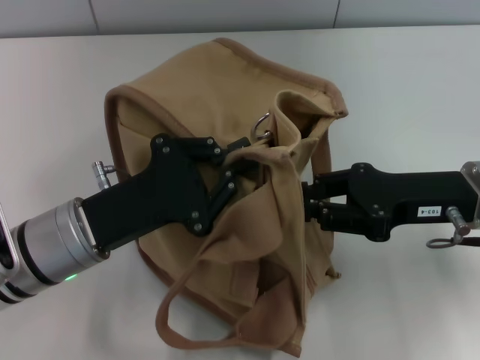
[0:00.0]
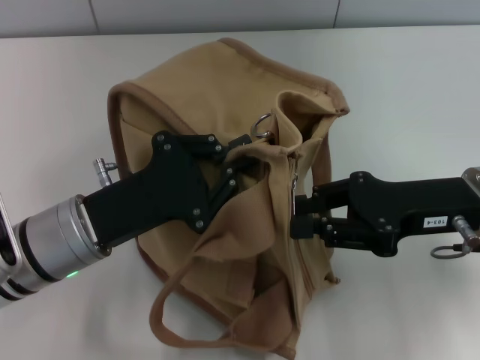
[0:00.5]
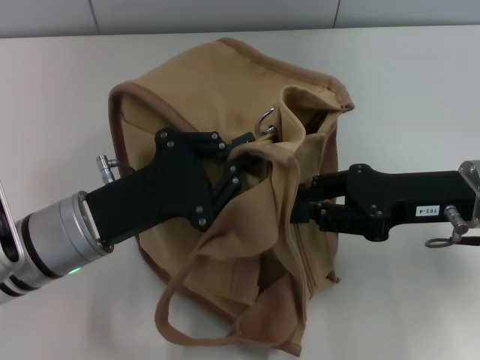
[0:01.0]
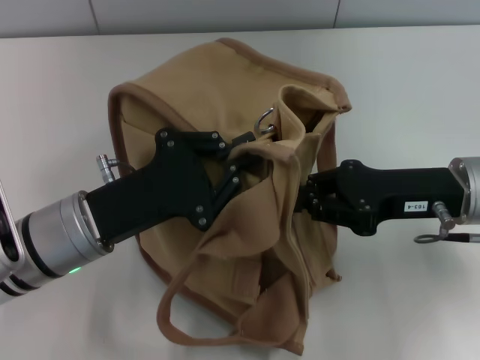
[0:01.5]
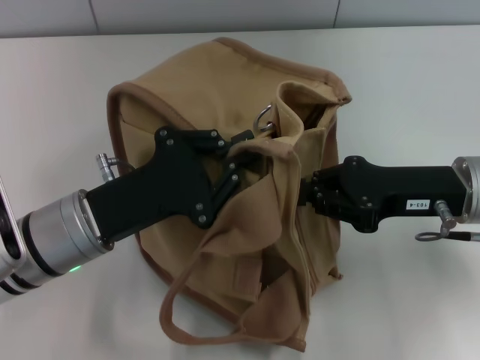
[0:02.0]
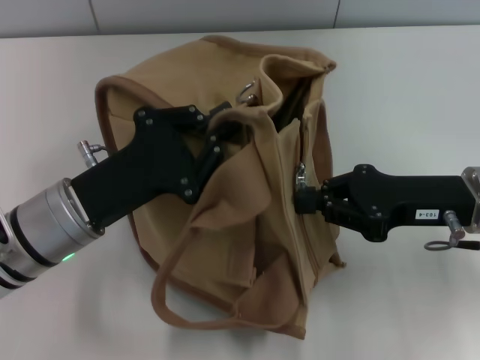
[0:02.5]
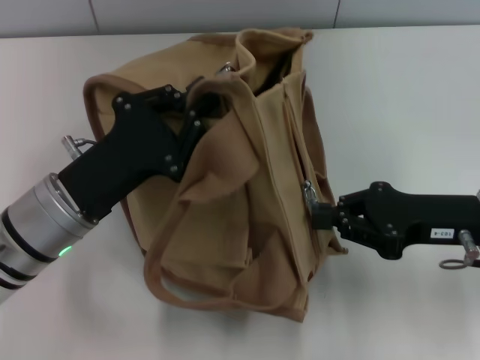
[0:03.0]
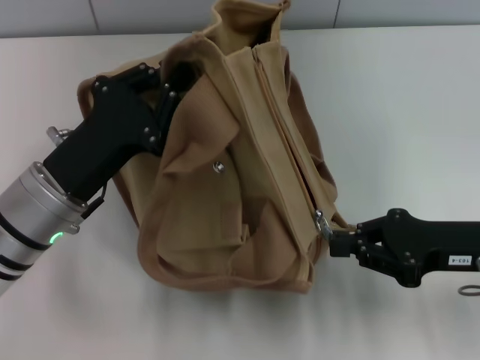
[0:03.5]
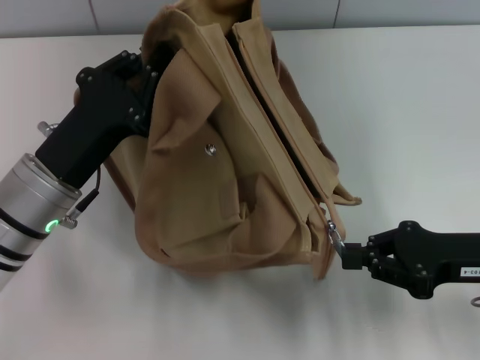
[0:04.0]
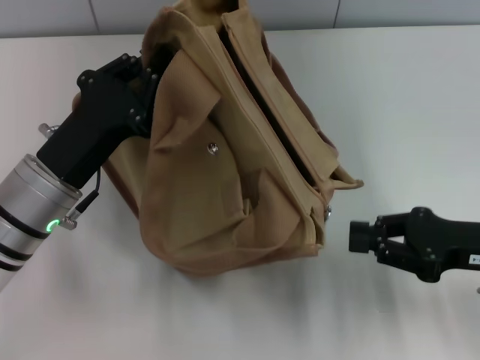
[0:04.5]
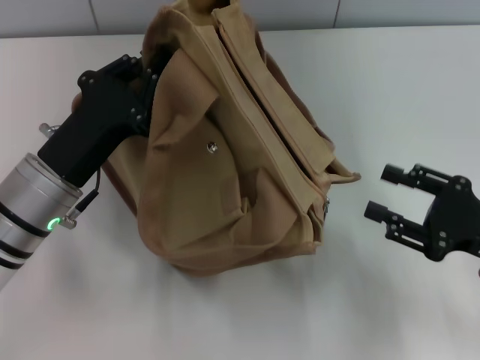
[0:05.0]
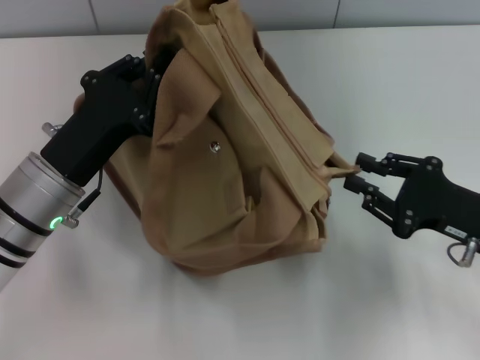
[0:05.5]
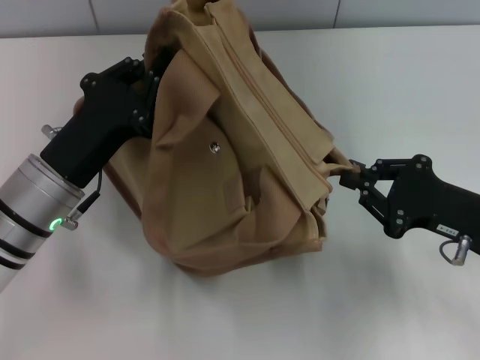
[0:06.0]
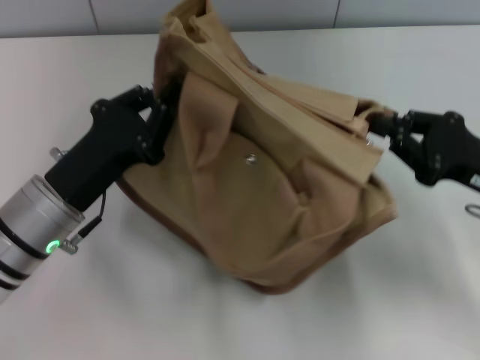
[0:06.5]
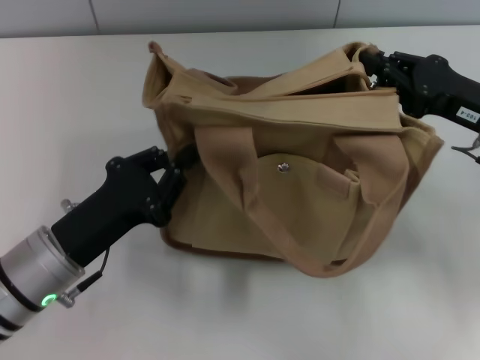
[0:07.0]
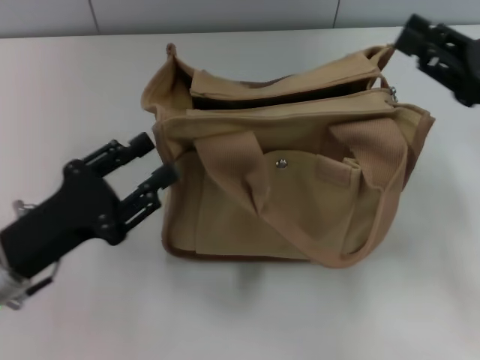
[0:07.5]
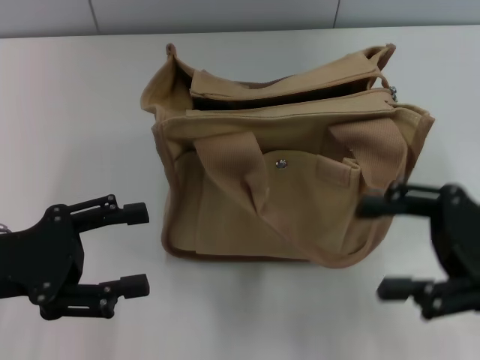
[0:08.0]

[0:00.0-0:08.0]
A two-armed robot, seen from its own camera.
Step, 0:00.0 to 0:04.5: Pull open the zipper with your right hand.
Step, 0:05.0 to 0:07.5: Grab the bag with your left hand.
0:00.0 to 0:02.0: The right gripper closes its fingers.
0:02.0 to 0:04.0: The right gripper is displaced to the right by approximately 5 cm.
0:04.0 to 0:06.0: The right gripper opens and closes again.
0:06.0 to 0:08.0: The left gripper travels to the left and backward by some 10 cm, and opens up. Meanwhile the right gripper goes about 5 cm upward, reaches some 5 cm forward, then returns, and opens its fingers.

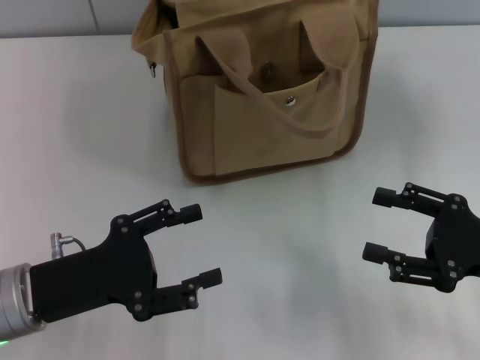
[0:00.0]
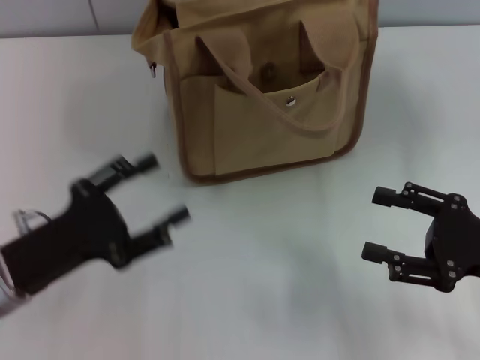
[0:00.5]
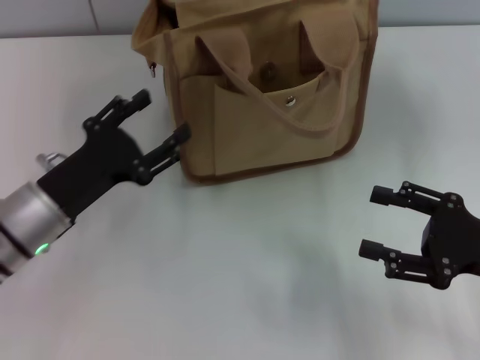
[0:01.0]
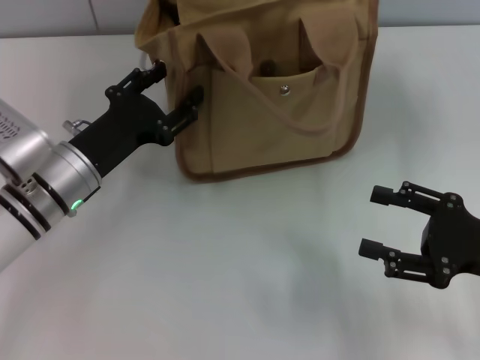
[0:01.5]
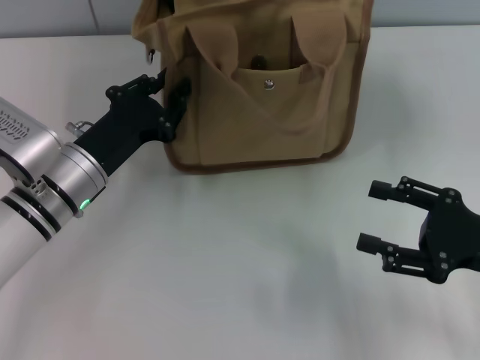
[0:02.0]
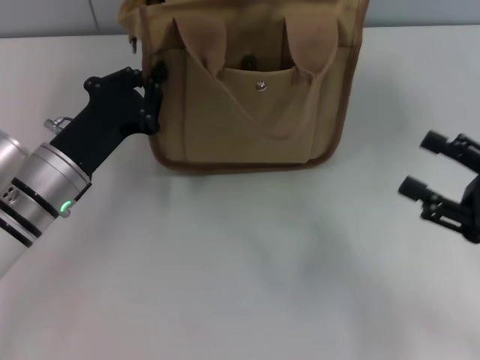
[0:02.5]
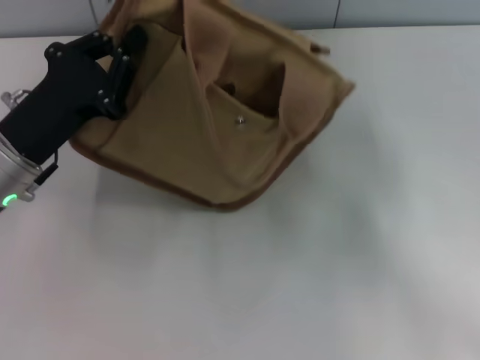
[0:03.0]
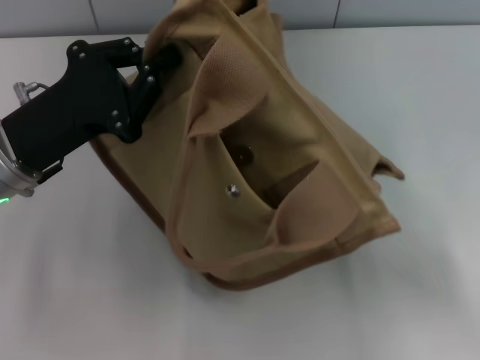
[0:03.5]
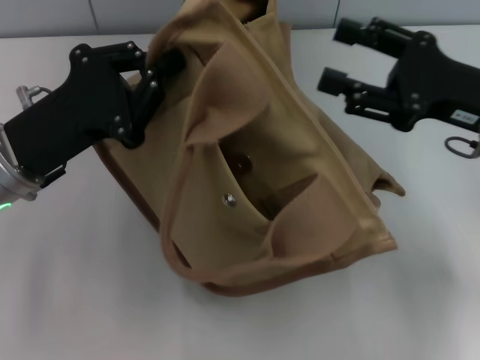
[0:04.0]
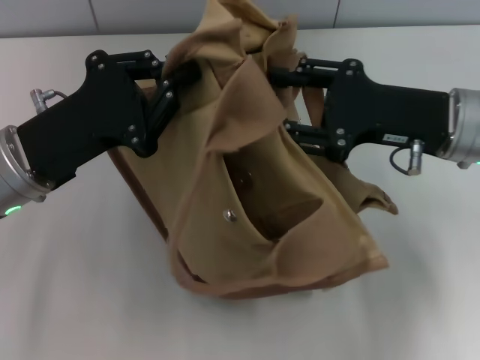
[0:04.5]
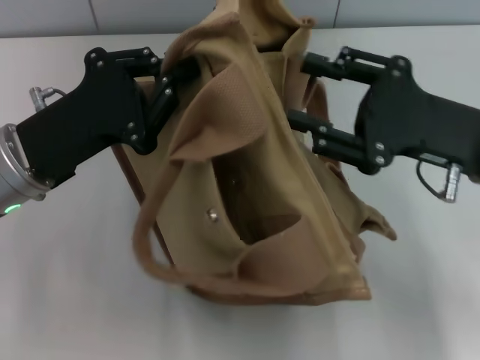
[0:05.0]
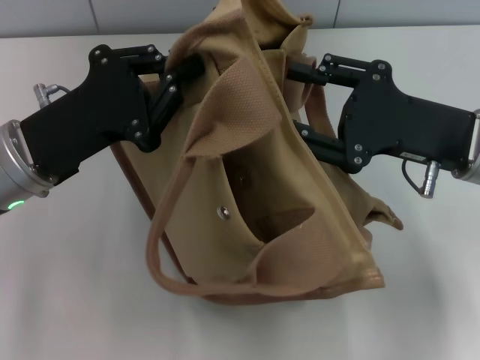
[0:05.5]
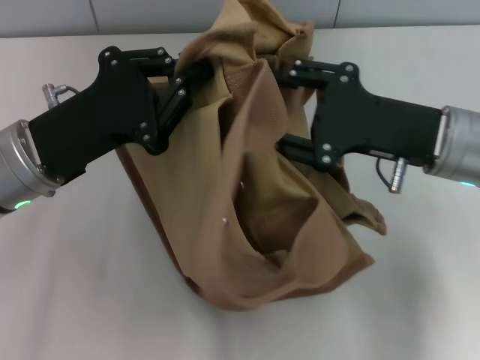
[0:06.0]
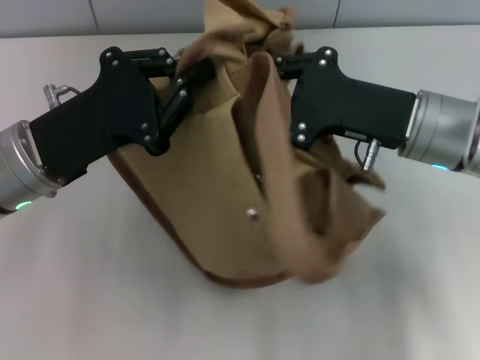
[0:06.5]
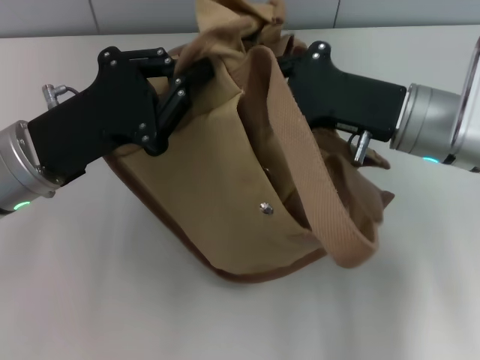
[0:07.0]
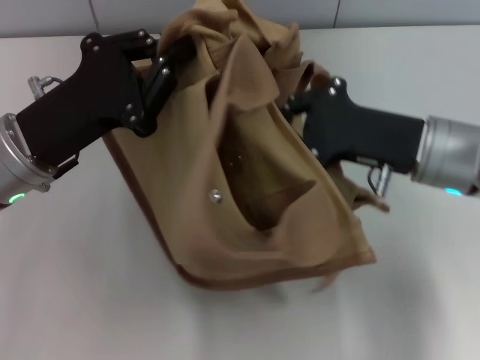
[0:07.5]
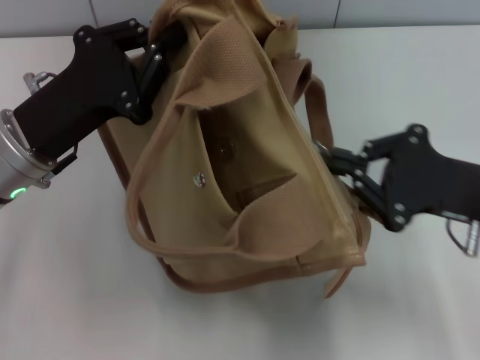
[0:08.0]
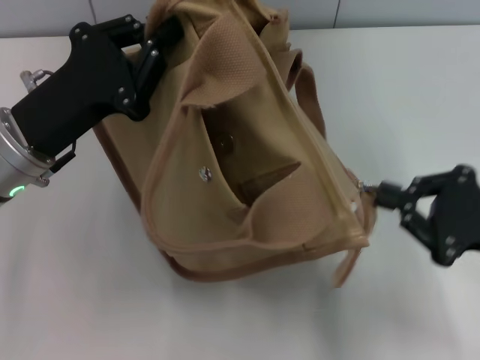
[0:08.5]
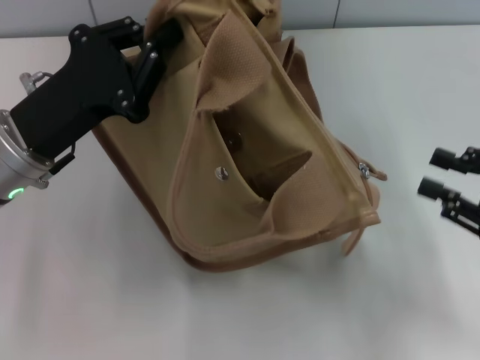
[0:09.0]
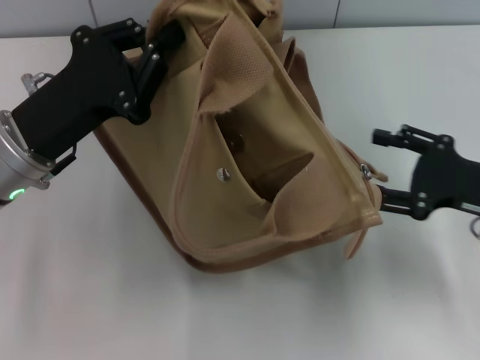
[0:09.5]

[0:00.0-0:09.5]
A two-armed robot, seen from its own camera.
Step, 0:00.0 to 0:08.5: Pull open the zipper with your right hand.
0:00.0 to 0:02.0: The left gripper heads forward, covering about 10 cm, and closes its fingers.
0:02.0 to 0:04.0: The left gripper travels upward by about 5 cm, and closes its fingers. The right gripper travels forward and upward by roughly 10 cm.
0:05.5 to 0:07.5: The right gripper closes its fingers.
0:07.5 to 0:09.5: The right gripper moves to the right, some 10 cm, and opens.

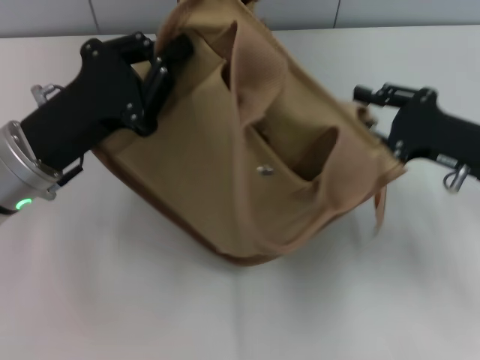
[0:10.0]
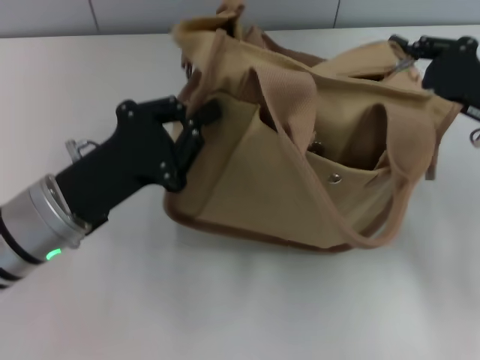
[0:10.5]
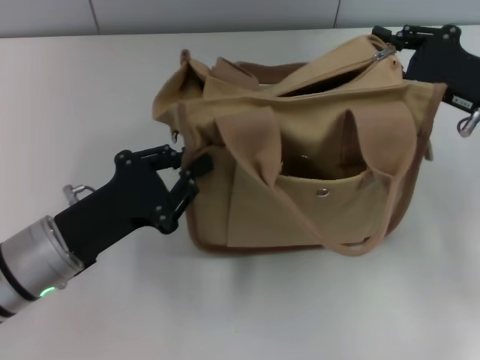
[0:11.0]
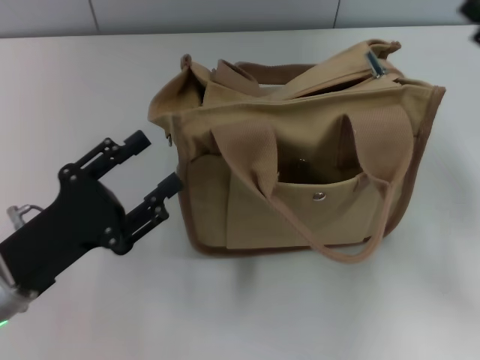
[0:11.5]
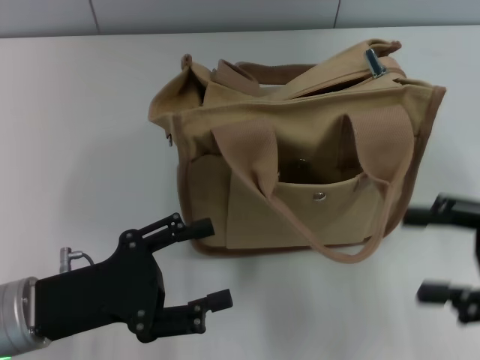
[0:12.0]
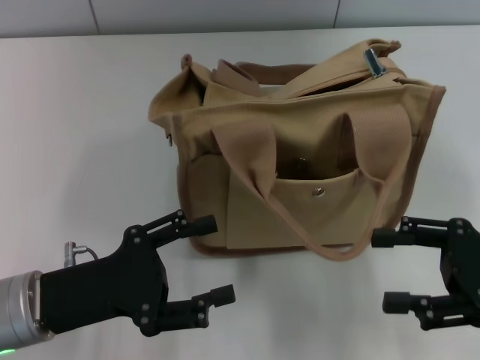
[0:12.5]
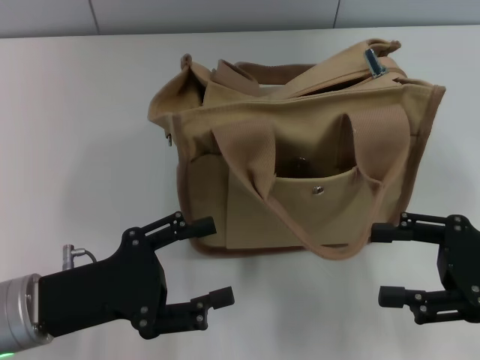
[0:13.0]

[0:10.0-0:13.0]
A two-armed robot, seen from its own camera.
0:10.0 to 0:11.5: The right gripper heads to the right, covering about 5 cm, and closes, then opens again; the left gripper shifts approximately 10 cm backward and downward.
0:11.5 to 0:13.0: The left gripper opens up, while the right gripper is displaced backward by approximately 5 cm, and opens.

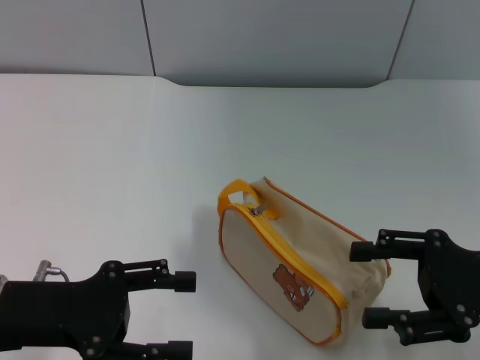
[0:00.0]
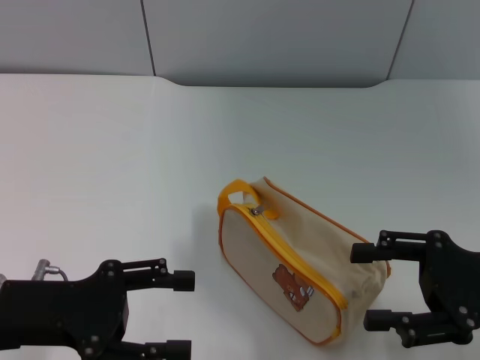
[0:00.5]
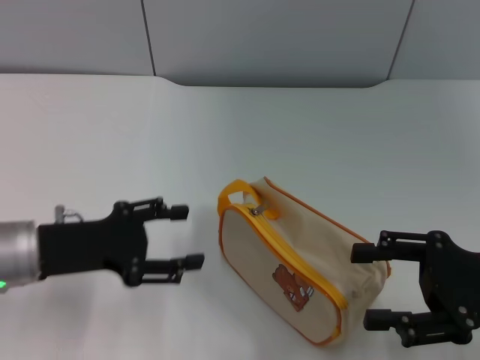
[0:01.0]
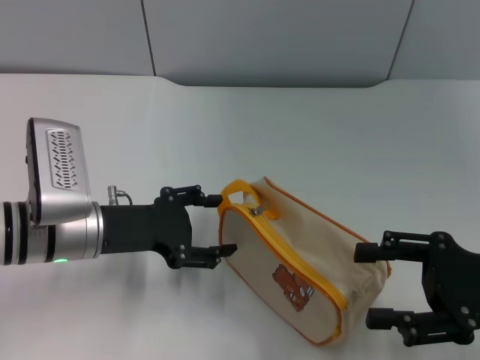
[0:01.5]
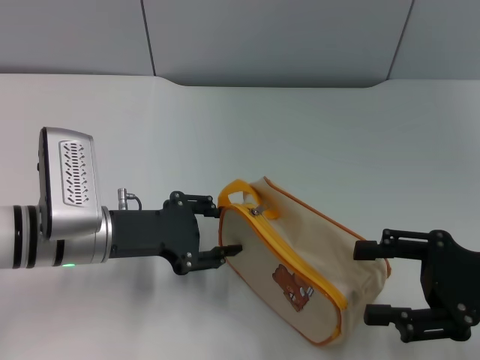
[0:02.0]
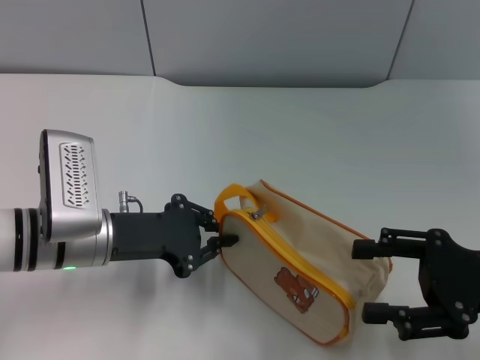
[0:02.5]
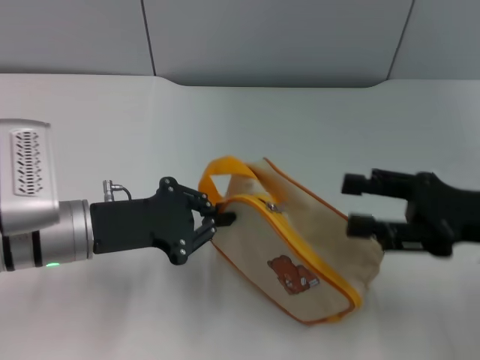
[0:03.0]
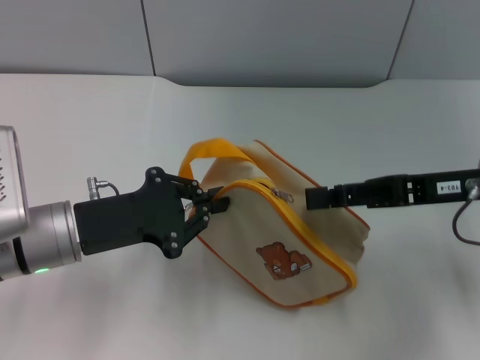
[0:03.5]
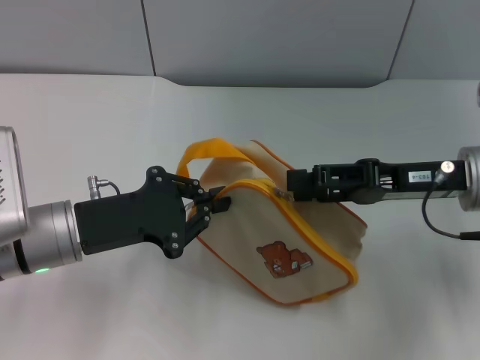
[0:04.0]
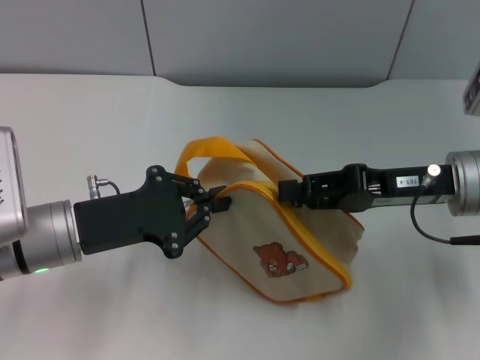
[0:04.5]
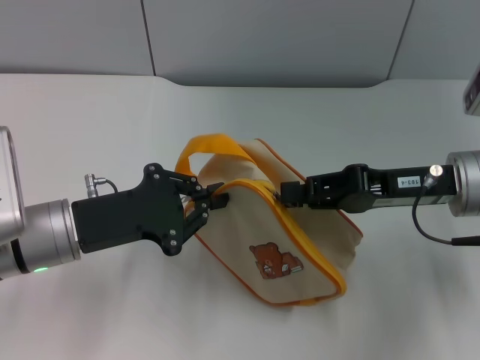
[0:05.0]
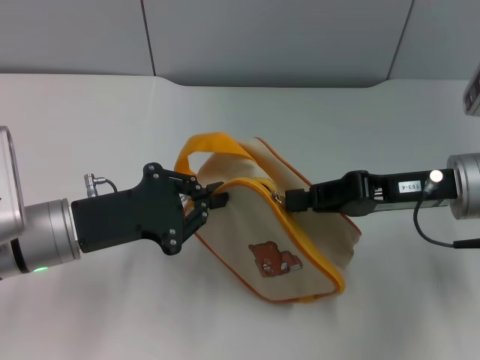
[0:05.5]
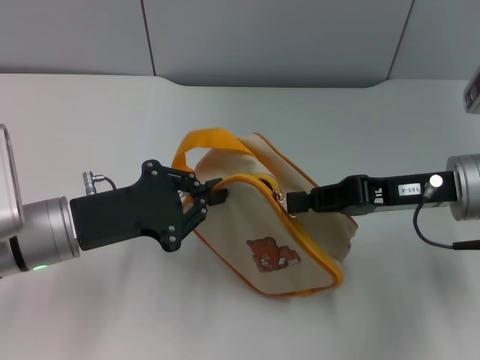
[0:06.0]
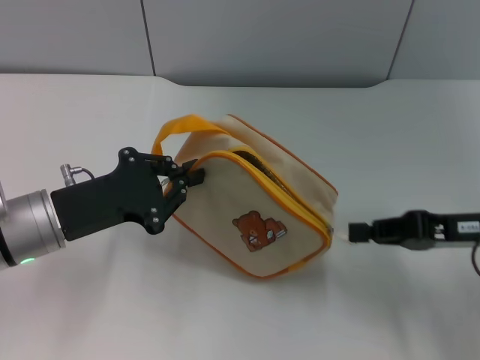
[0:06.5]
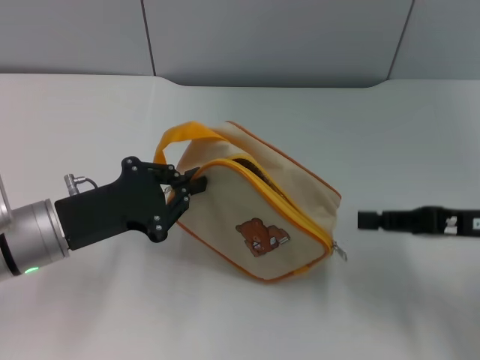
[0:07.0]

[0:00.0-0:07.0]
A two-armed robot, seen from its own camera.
Step, 0:00.0 to 0:03.0: Pick up the bag with left gripper.
Step, 0:03.5 to 0:06.5: Unzip the zipper of bag with right gripper.
0:00.0 to 0:02.0: The left gripper travels forward and to the right by some 10 cm.
0:02.0 to 0:03.5: The left gripper closes its fingers. Meanwhile the right gripper goes roughly 10 cm forward.
0:03.5 to 0:05.0: The right gripper closes its fingers.
0:05.0 to 0:07.0: The right gripper goes approximately 5 cm to the right.
